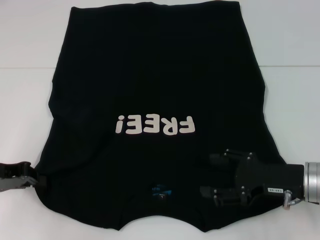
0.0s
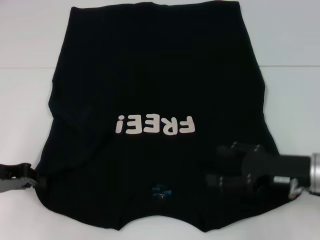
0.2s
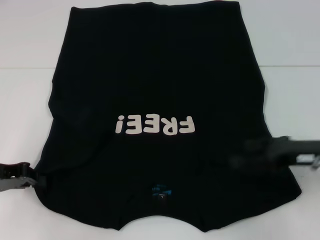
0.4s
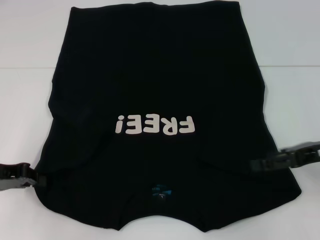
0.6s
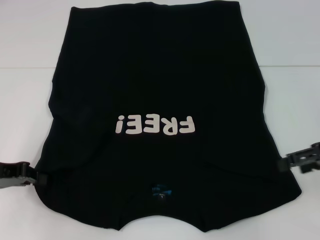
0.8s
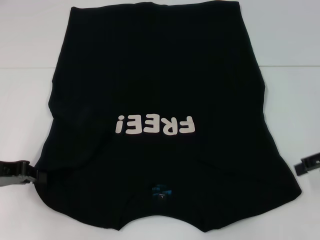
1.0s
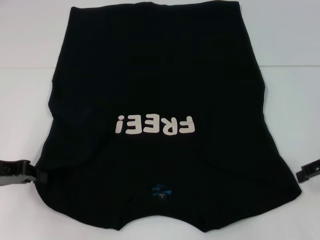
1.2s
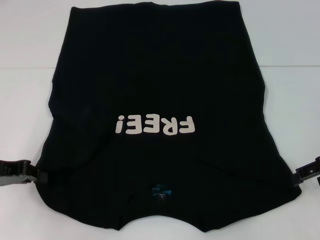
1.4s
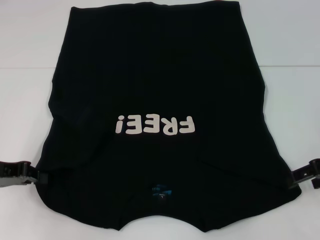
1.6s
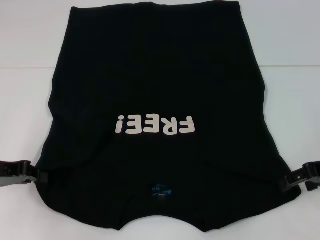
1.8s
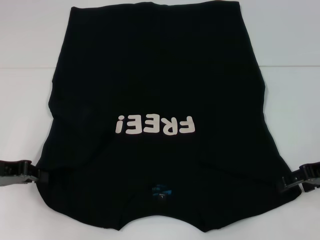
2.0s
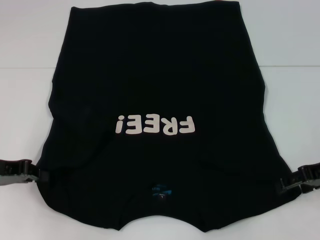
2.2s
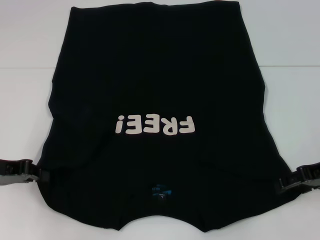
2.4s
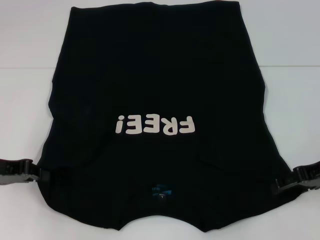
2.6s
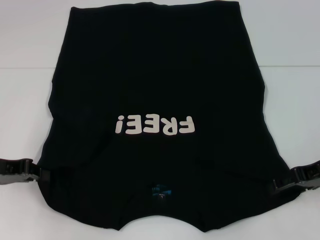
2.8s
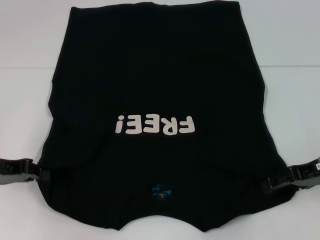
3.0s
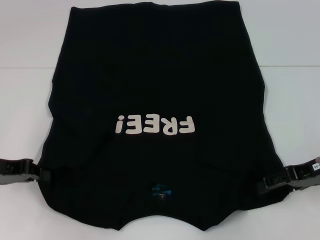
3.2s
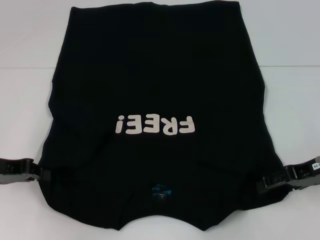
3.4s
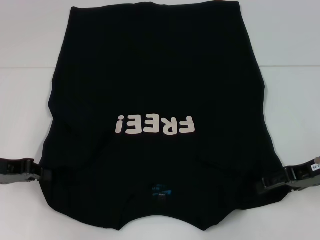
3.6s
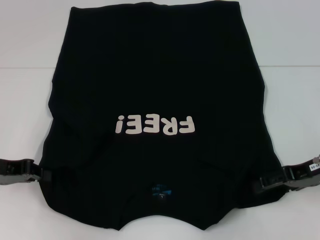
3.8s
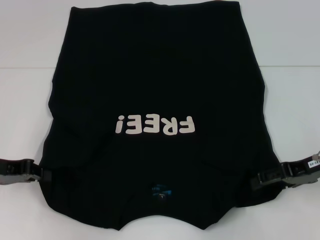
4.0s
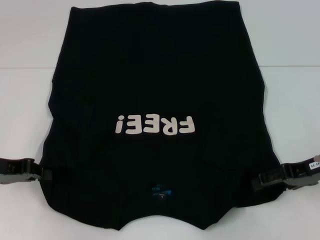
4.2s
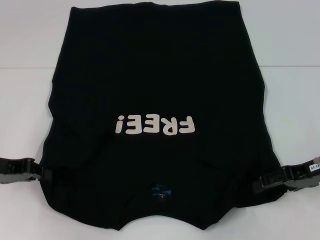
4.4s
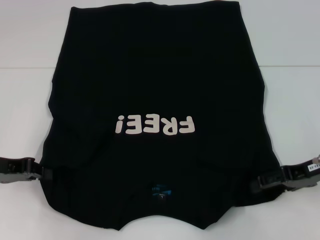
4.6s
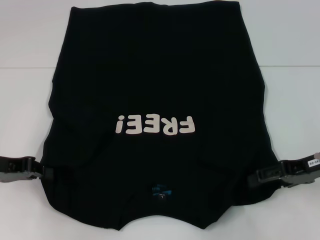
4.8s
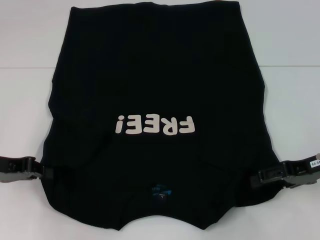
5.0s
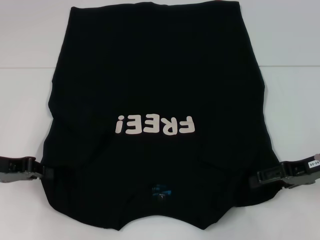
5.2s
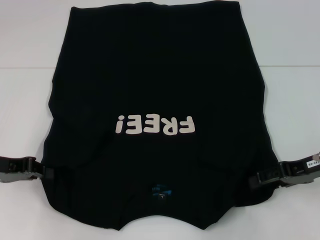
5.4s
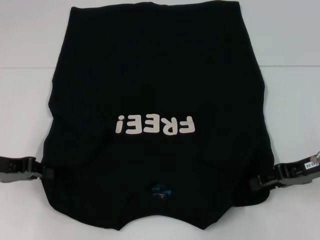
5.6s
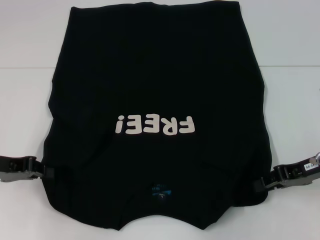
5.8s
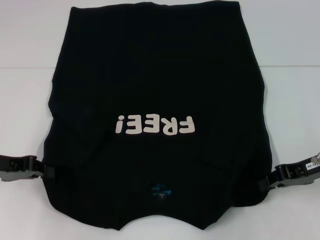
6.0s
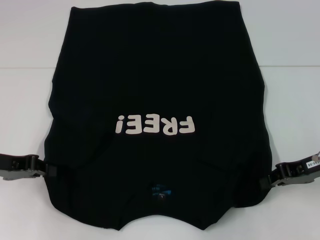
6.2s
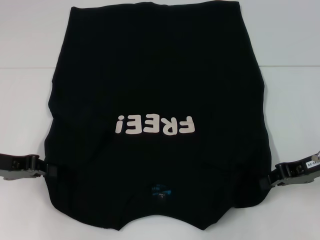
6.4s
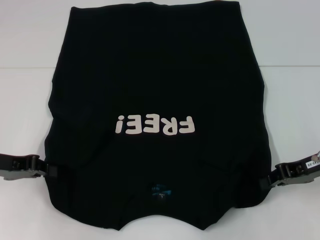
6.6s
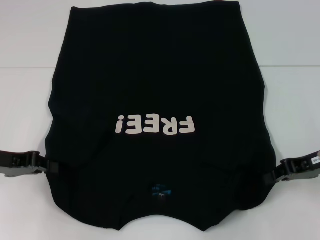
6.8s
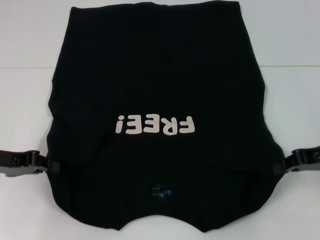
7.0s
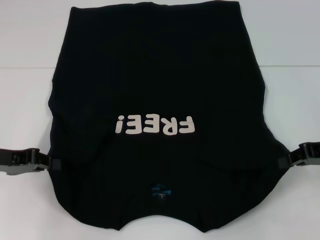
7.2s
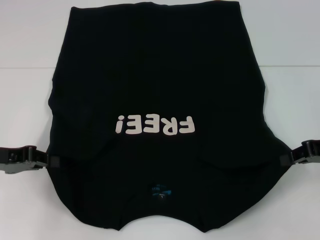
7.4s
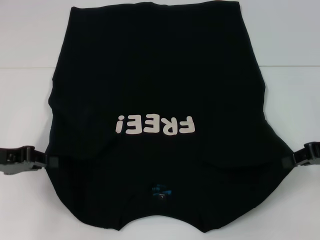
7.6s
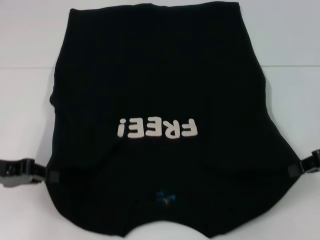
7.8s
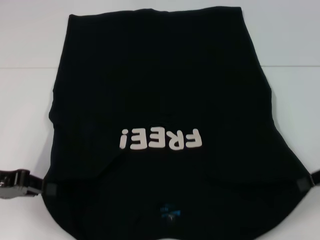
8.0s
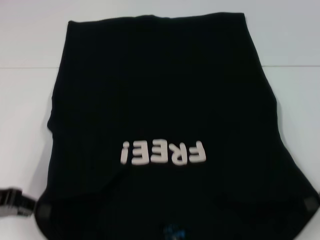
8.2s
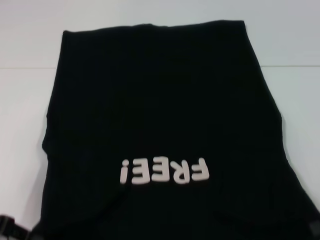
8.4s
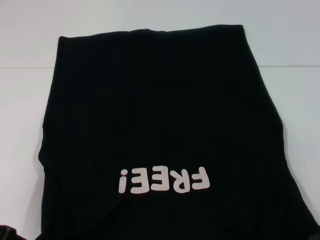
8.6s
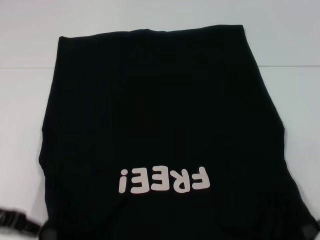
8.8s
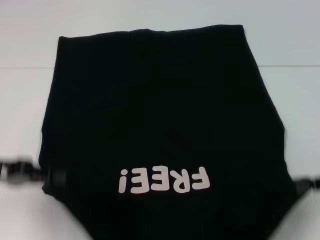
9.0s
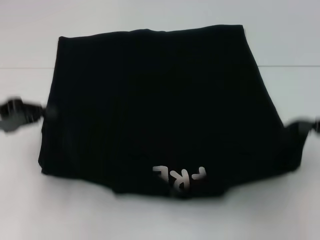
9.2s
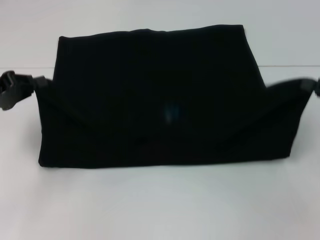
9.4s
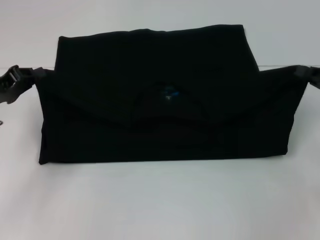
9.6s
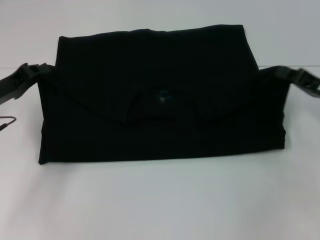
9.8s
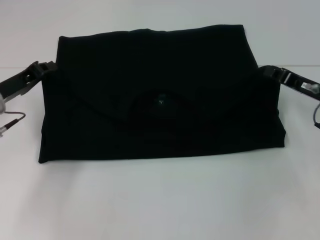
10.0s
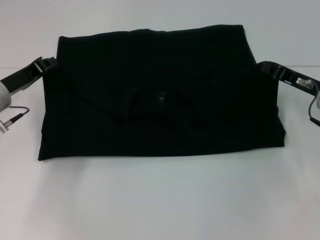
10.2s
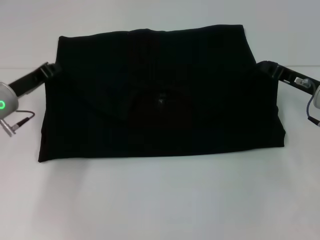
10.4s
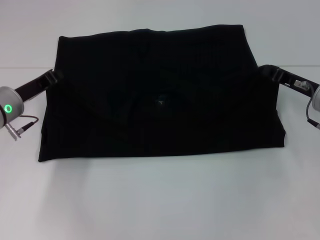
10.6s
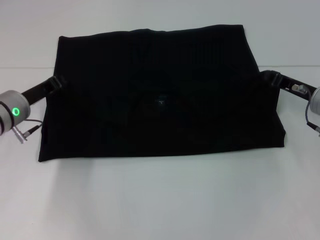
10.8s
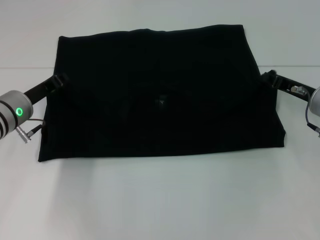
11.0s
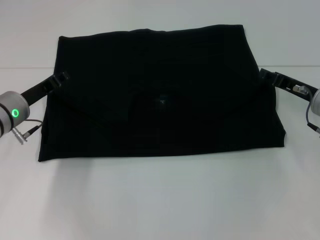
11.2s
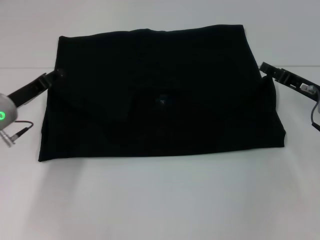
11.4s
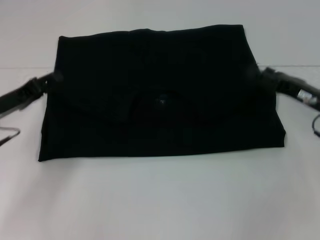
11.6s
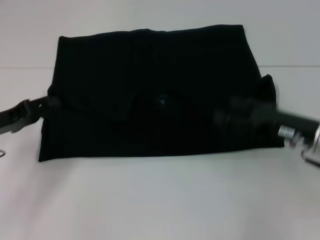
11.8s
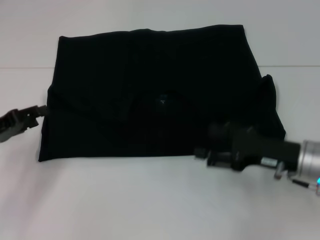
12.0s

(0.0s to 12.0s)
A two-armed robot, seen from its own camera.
Step, 0.2s - 6.6s: Grab the bottom right corner with your right hand.
Step, 6.8s - 11.2s: Fold the clothes with your left hand.
Step, 6.8s - 11.2s: Fold the clothes with your right hand.
0.0s - 1.6s: The right gripper goes some 10 cm upward and to the right.
1.6s - 4.4s: There are only small adjustments of the grippers.
4.4s - 6.0s: The right gripper closes.
6.0s - 7.6s: The right gripper moves roughly 5 cm.
7.6s - 9.0s: The right gripper changes place by roughly 5 cm.
9.0s - 10.4s: The right gripper is displaced forward and to the left by approximately 15 cm. Meanwhile the left gripper heads forward, covering about 10 cm.
10.4s - 12.0s: The left gripper goes about 10 cm backward and to the left, and opens its fingers, while the right gripper travels backward by some 10 cm, and opens its fingers.

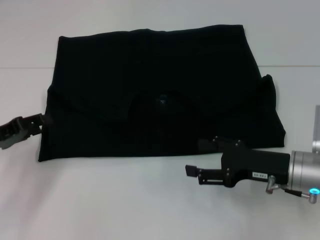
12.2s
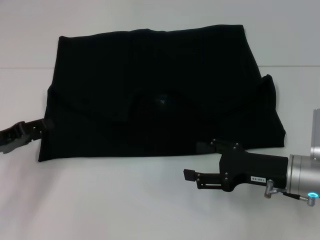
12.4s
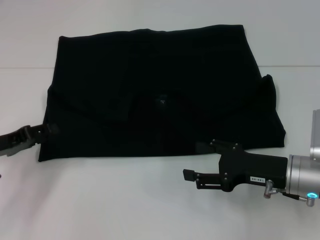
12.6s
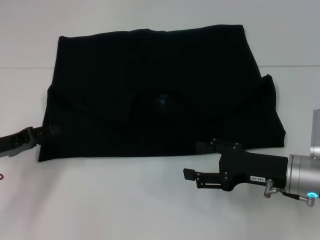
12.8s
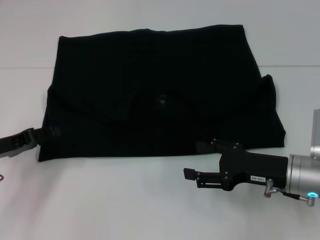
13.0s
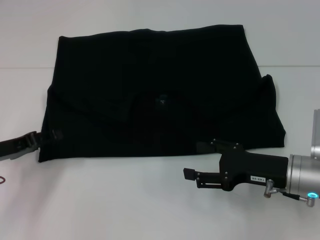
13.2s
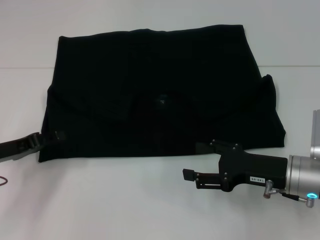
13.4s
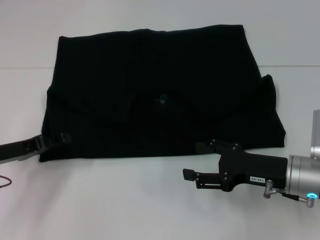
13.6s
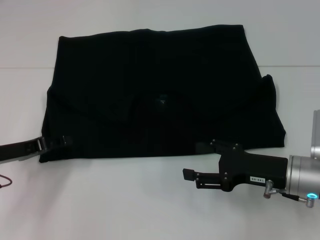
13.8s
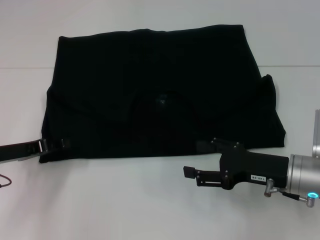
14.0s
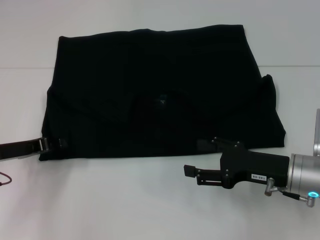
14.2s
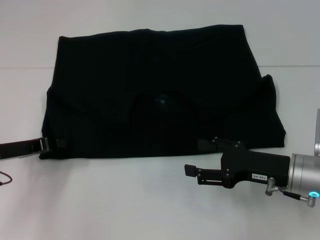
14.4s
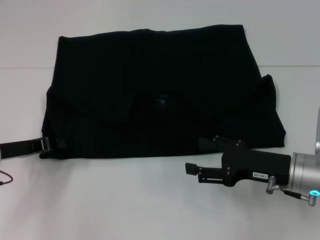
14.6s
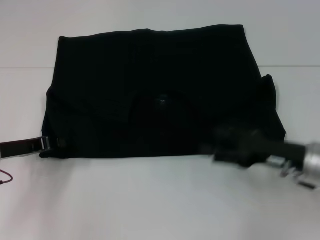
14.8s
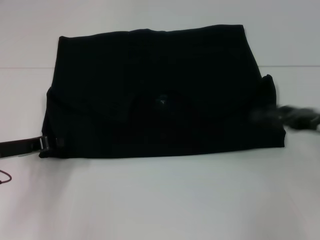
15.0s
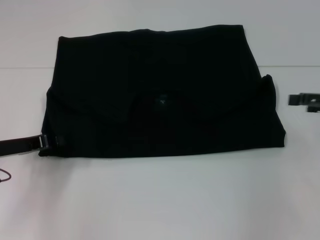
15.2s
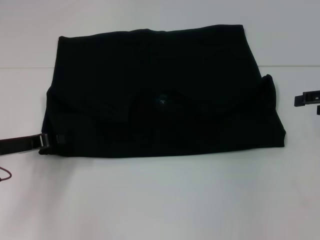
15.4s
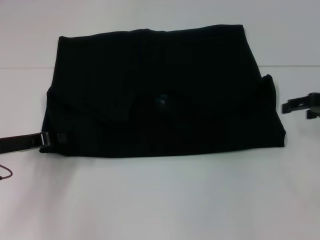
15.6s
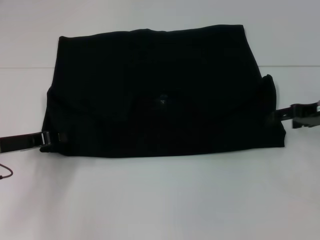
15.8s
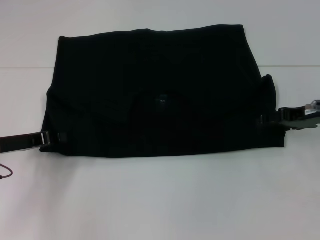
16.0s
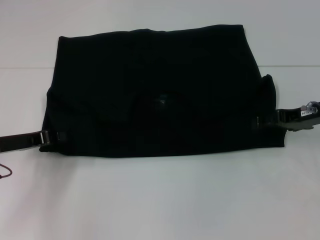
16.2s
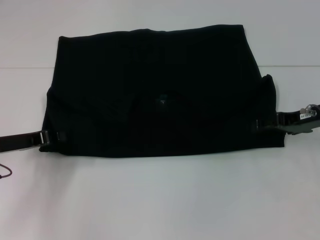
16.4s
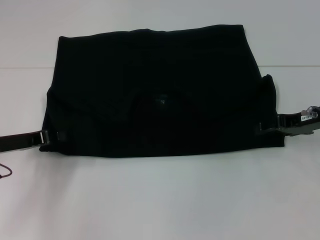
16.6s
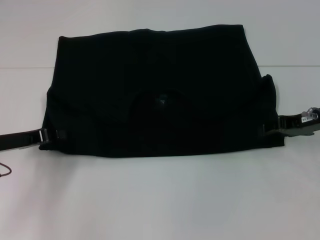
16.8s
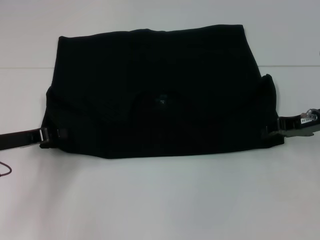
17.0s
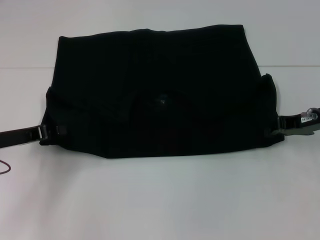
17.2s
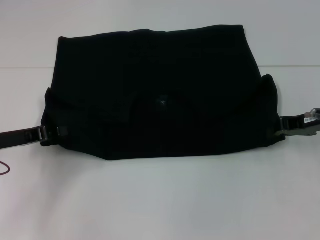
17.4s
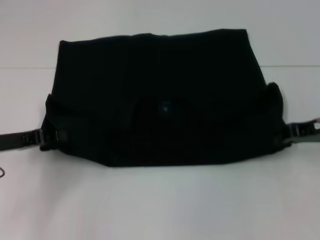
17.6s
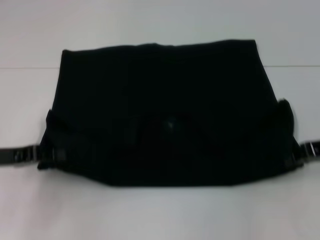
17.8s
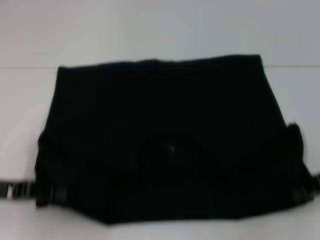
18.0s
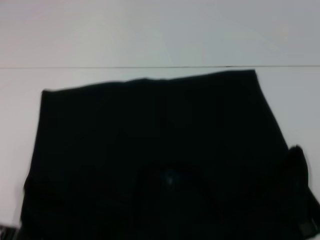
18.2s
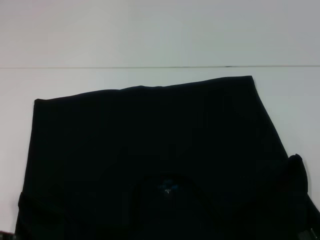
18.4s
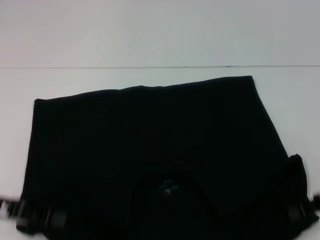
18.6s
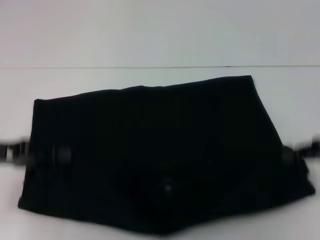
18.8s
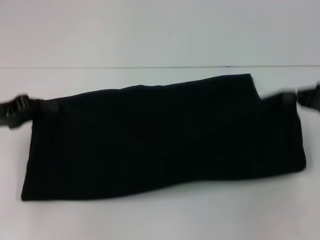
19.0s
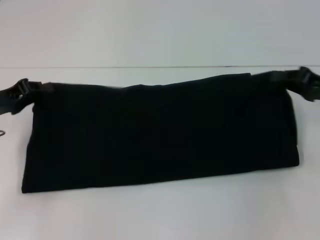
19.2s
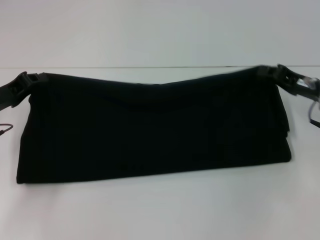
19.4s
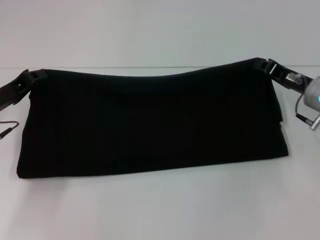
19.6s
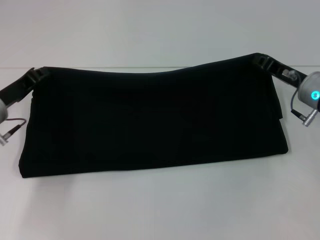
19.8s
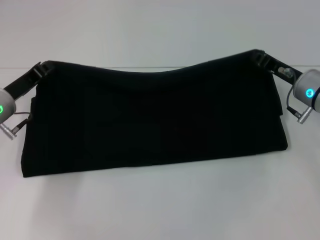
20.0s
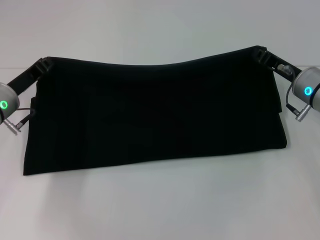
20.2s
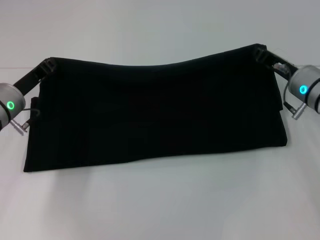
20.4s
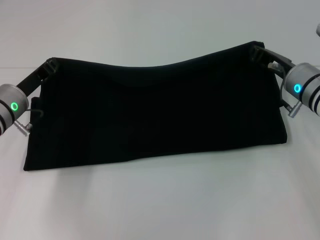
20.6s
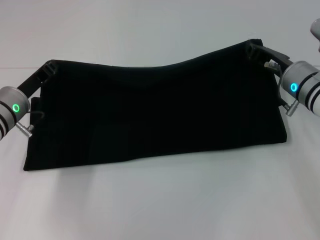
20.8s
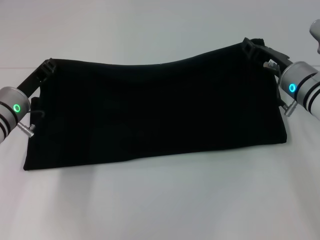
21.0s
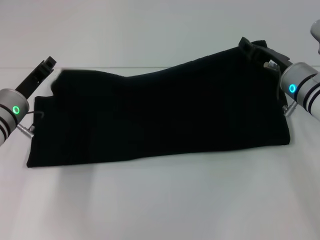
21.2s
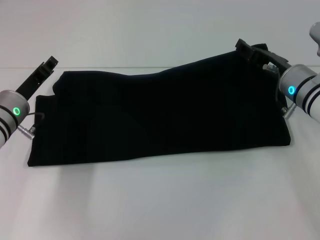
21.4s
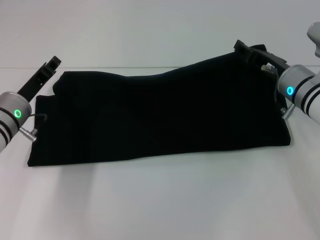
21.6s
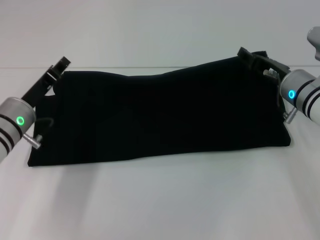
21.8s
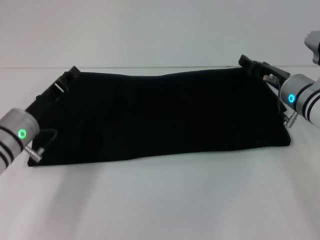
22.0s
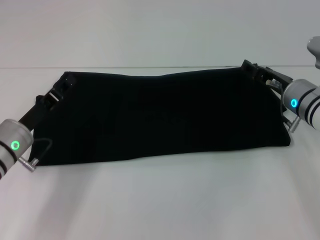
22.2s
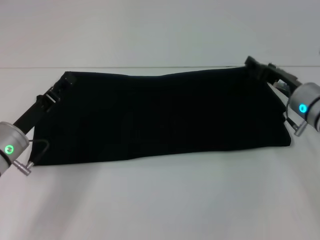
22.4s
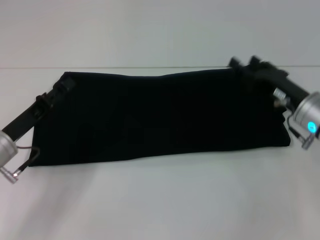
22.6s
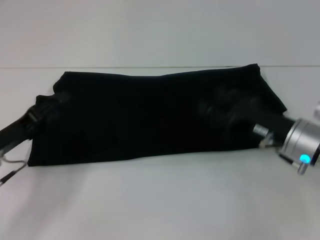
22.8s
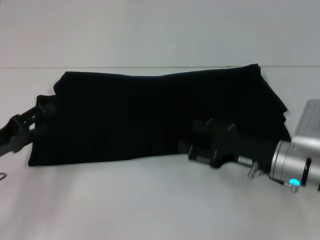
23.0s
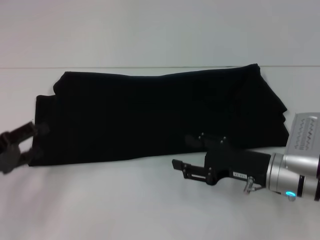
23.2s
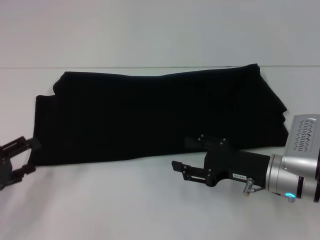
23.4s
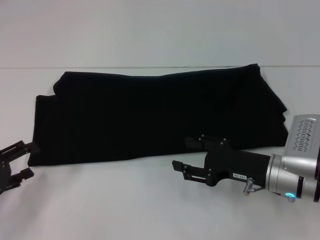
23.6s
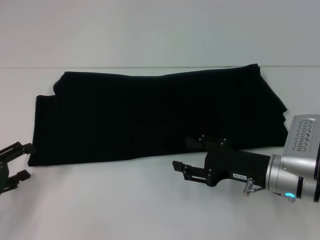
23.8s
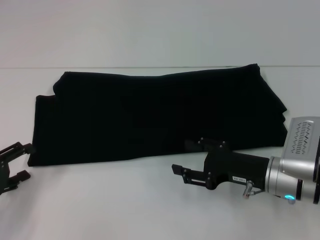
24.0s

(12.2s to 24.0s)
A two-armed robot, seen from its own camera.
Step, 12.2s - 18.2s: Pull the clothes with your left hand.
Step, 12.2s - 18.2s: Pull the clothes with your right hand.
Step, 18.4s - 22.0s: Fold the clothes with your right hand.
12.2s - 13.6s: The grippers stay close to where they were, moving slightly.
13.6s - 15.2s: The right gripper heads to the right and upward, covering approximately 15 cm. The left gripper closes.
15.2s - 16.6s: The right gripper travels to the left by some 5 cm.
16.6s - 18.2s: Both grippers move backward, some 10 cm. The right gripper closes up.
18.2s - 19.6s: The left gripper is displaced forward by approximately 10 cm. Meanwhile the right gripper shifts roughly 15 cm forward and to the left.
19.6s - 21.0s: The left gripper is displaced to the right by some 5 cm.
21.0s - 22.6s: The two grippers go approximately 5 cm backward. The right gripper opens; the left gripper opens its fingers.
22.6s - 24.0s: The left gripper moves to the left and backward, about 10 cm. The right gripper heads backward, covering approximately 5 cm.
